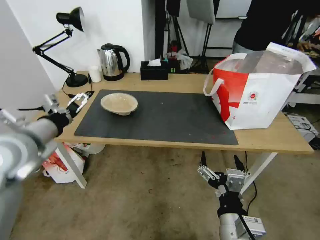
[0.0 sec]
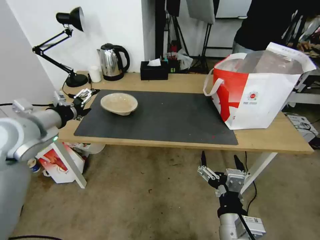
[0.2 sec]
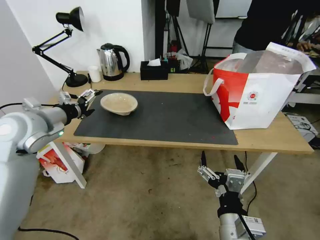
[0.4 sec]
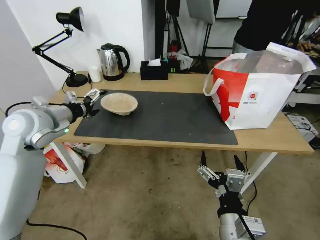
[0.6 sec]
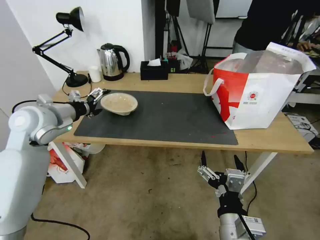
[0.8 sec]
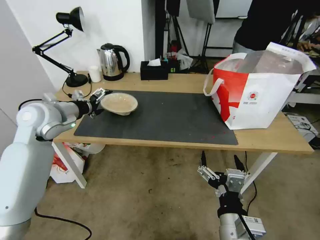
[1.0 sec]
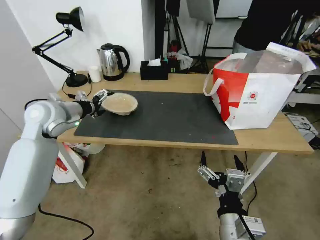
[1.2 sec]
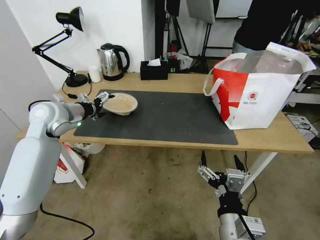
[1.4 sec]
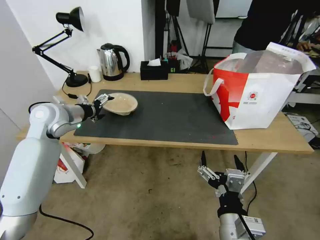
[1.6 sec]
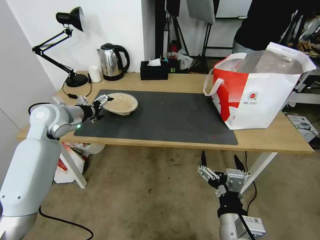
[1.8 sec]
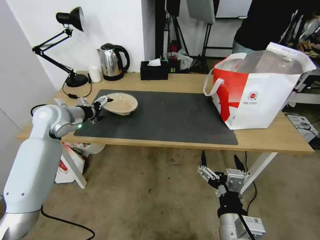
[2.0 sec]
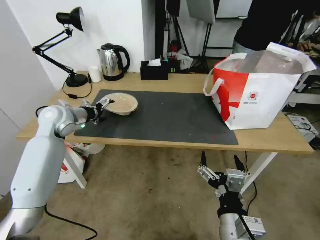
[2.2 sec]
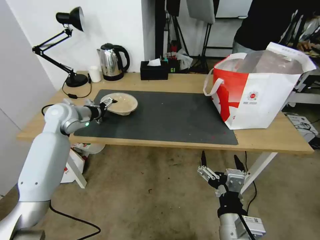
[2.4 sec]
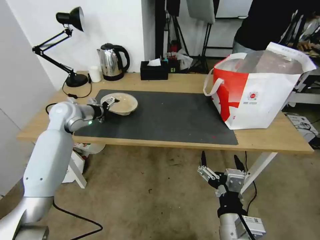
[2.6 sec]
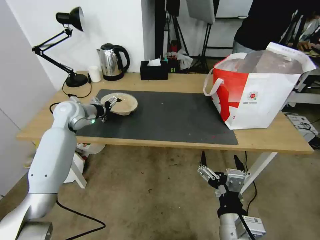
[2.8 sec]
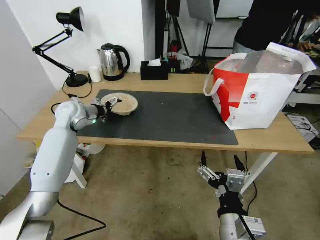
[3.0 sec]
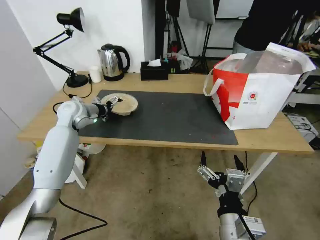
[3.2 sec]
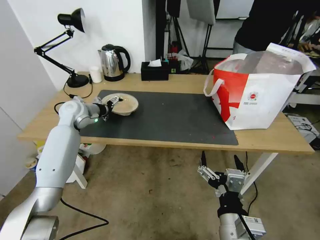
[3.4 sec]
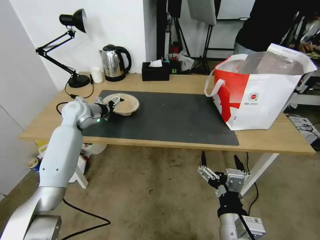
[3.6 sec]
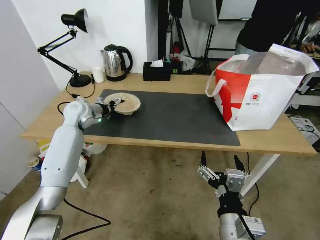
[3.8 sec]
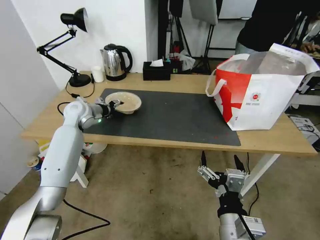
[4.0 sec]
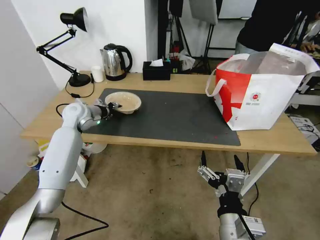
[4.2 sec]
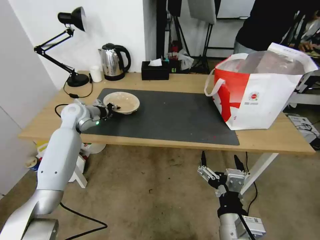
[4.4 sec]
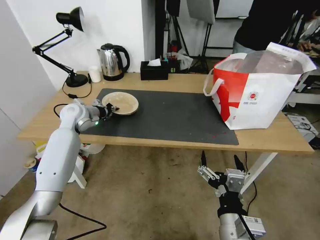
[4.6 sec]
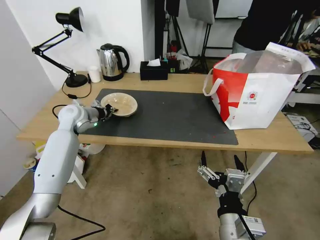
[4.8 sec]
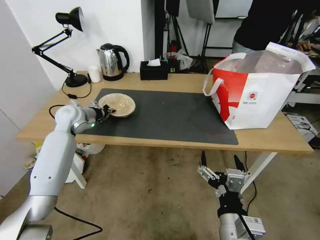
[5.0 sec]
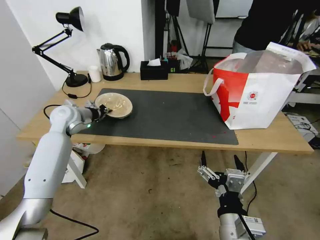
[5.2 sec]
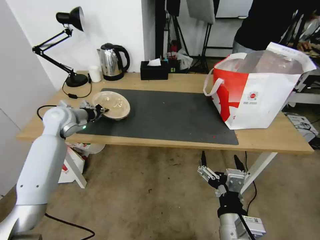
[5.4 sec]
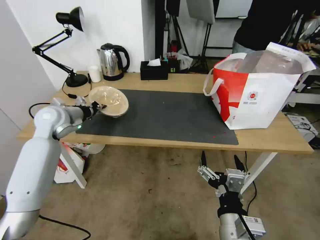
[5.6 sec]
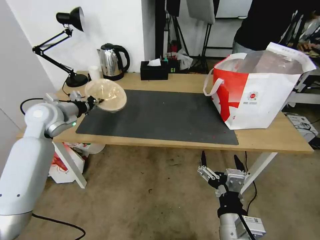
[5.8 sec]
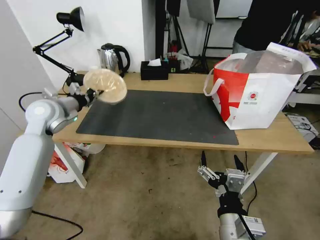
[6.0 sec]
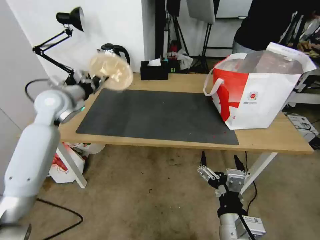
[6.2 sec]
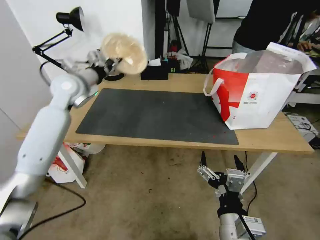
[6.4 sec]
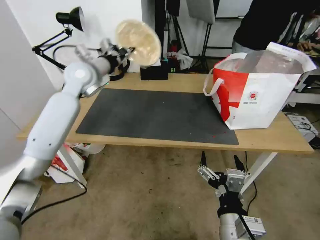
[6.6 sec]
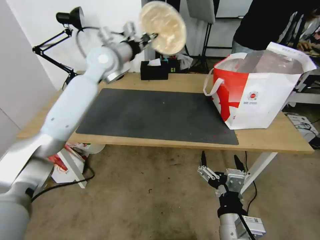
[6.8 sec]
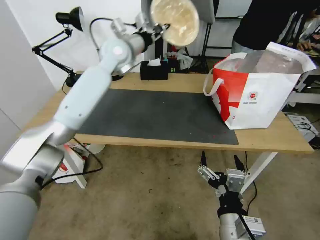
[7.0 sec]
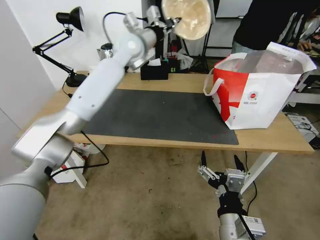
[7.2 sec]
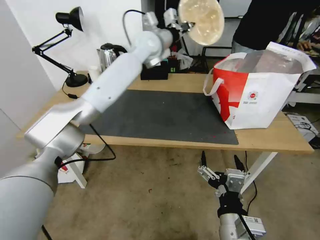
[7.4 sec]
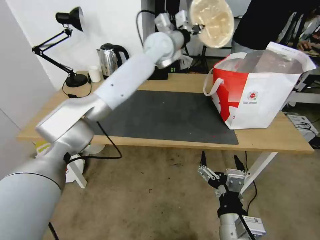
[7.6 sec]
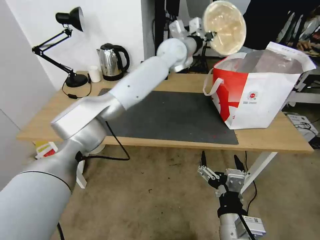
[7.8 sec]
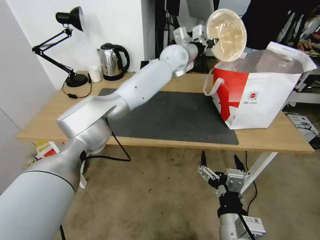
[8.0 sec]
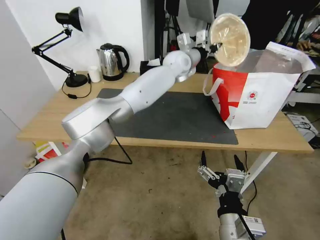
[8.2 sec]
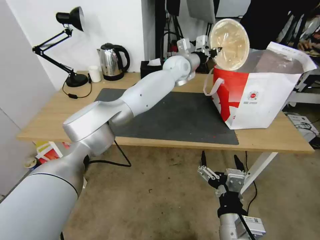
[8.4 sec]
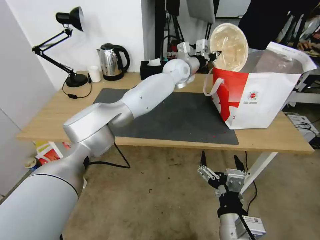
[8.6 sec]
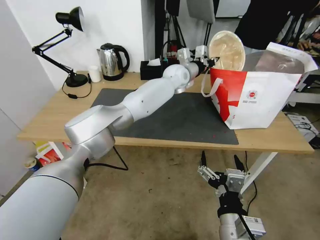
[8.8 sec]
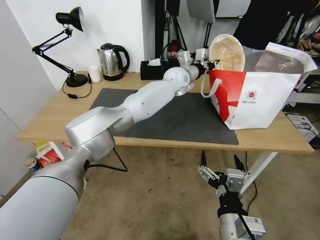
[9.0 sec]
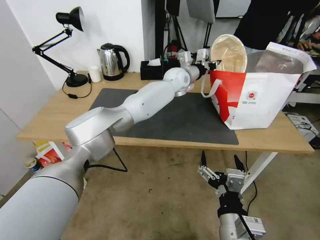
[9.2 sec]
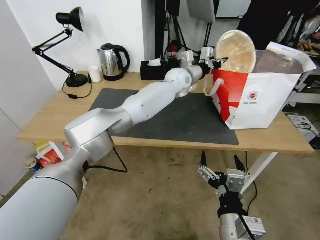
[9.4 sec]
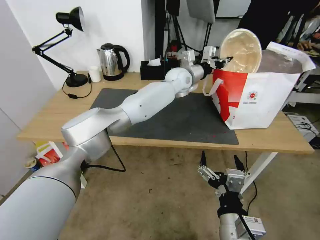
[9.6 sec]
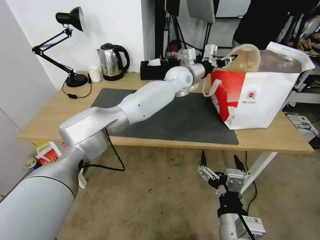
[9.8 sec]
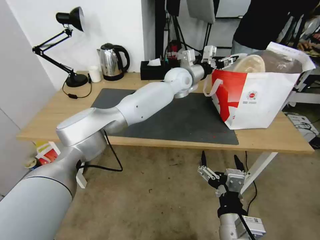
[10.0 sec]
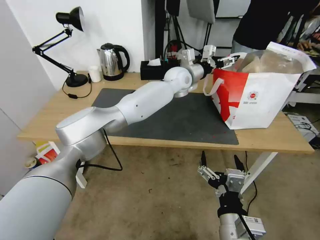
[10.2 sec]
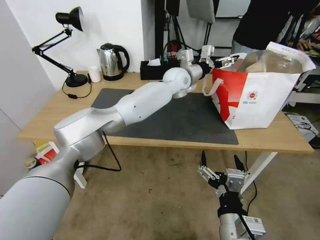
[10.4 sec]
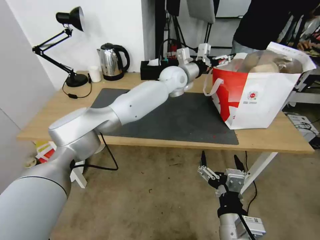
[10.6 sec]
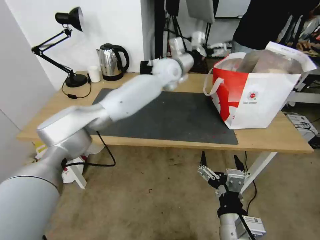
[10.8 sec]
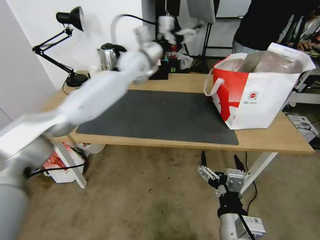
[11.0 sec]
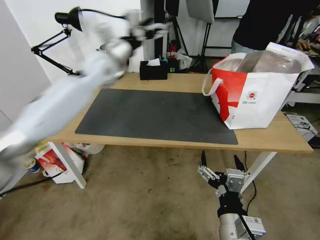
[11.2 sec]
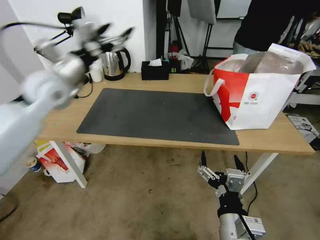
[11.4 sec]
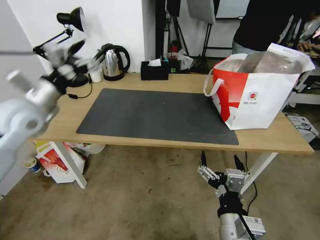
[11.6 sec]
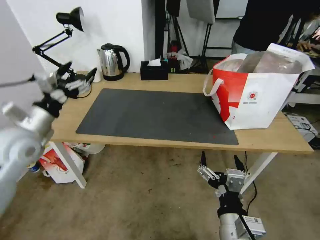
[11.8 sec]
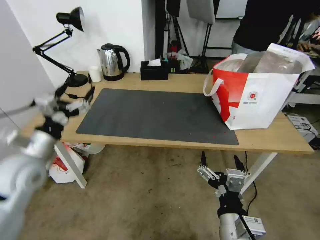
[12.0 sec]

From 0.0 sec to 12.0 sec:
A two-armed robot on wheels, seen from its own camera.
Task of the whole recording: Pick up the trash from the table and place it into the takeout bag.
From 0.0 sec to 1.6 sec: The left gripper heads forward, covering approximately 15 cm.
From 1.6 sec to 3.0 sec: The left gripper moves forward, about 5 cm.
From 3.0 sec to 4.4 sec: The left gripper closes up.
From 4.4 sec to 6.0 sec: The left gripper moves upward and backward, about 10 cm.
From 6.0 sec to 7.6 sec: The left gripper is displaced to the right and forward by about 40 cm.
From 7.6 sec to 9.0 sec: The left gripper goes roughly 15 cm downward and to the right.
From 9.0 sec to 10.4 sec: The left gripper opens its fingers.
From 10.4 sec to 12.0 sec: The left gripper shifts approximately 50 cm to the left and backward.

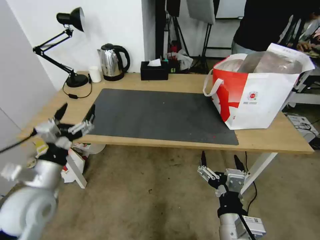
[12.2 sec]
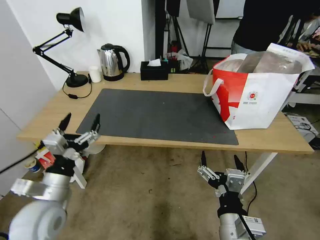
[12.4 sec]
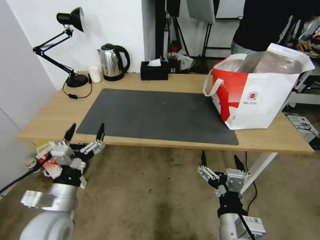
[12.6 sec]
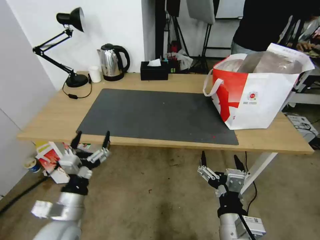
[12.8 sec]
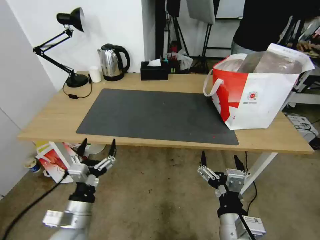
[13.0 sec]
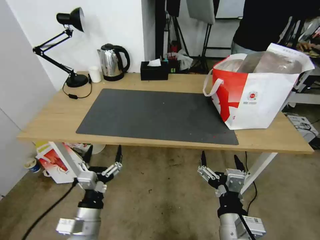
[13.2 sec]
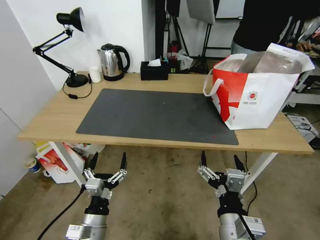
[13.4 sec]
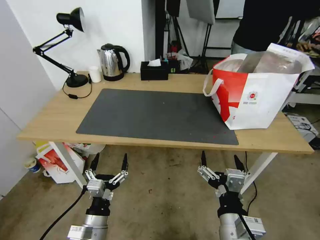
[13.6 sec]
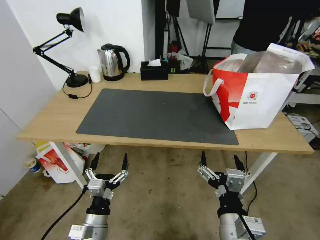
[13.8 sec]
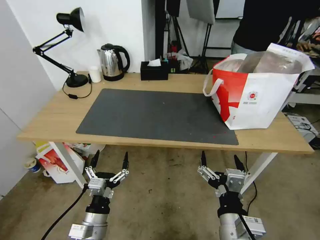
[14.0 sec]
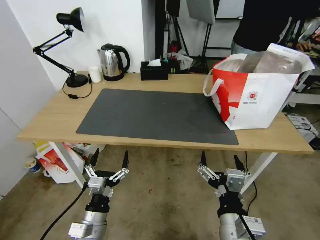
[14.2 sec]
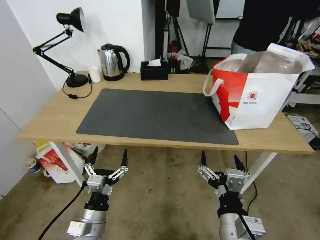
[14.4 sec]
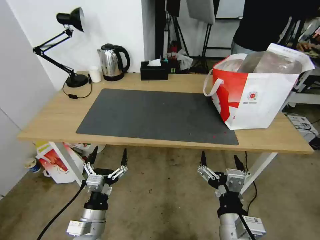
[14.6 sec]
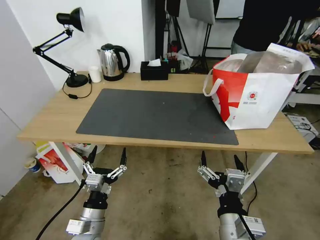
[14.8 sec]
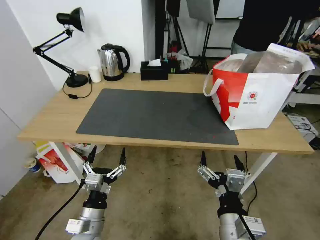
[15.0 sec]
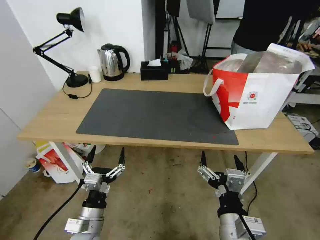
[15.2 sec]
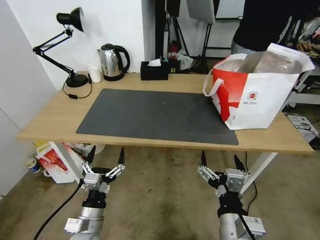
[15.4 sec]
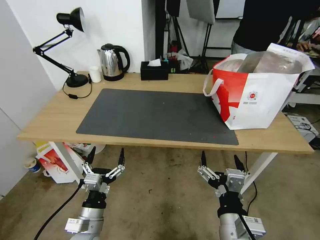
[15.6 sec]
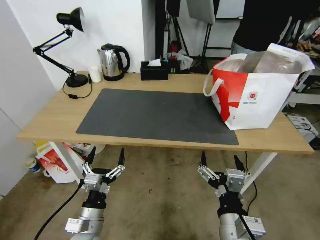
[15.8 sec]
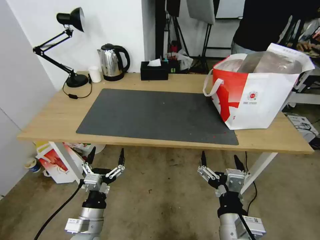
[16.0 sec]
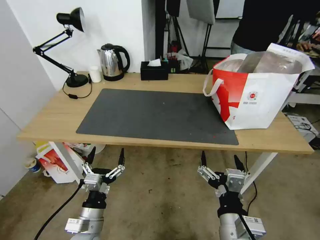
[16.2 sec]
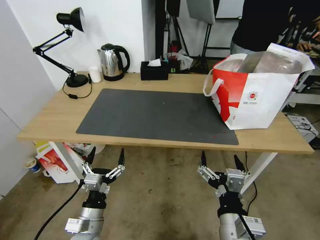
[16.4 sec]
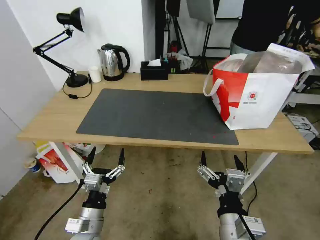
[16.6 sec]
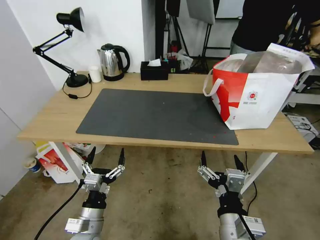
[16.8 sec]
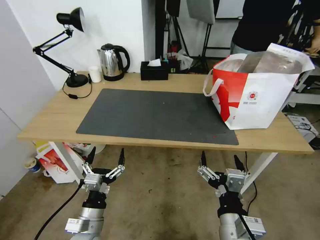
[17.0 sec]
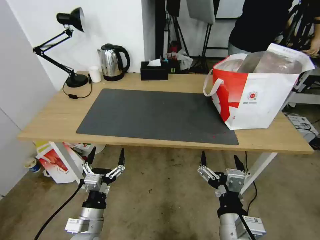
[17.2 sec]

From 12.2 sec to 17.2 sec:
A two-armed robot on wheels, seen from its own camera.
Task of the whole recording: Pick up the trash from the table and place it into the takeout bag.
From 12.2 sec to 13.8 sec: The left gripper heads downward, to the right and backward, covering approximately 20 cm.
From 13.8 sec to 15.6 sec: The grippers stay close to where they were, moving slightly.
From 15.6 sec to 17.2 sec: The two grippers keep their place.
